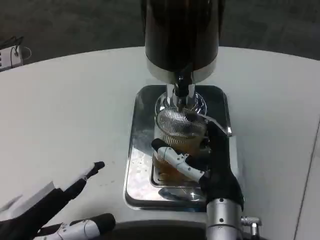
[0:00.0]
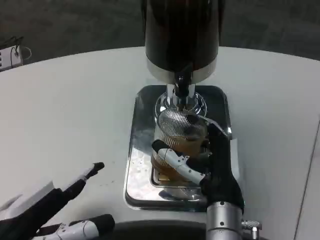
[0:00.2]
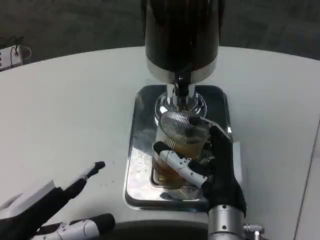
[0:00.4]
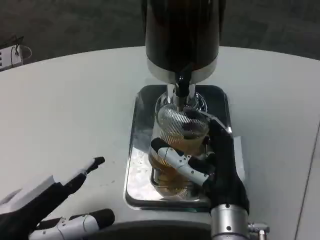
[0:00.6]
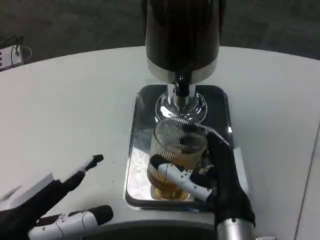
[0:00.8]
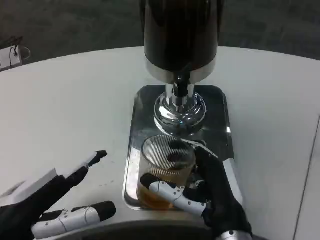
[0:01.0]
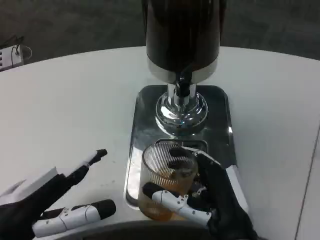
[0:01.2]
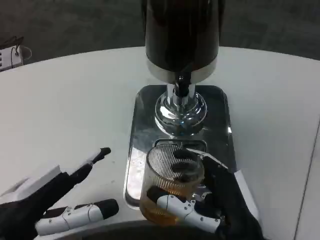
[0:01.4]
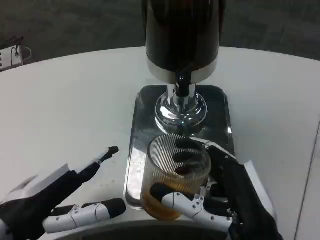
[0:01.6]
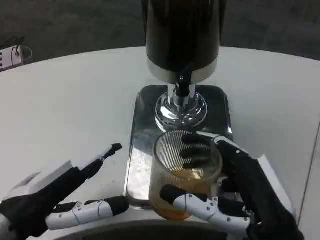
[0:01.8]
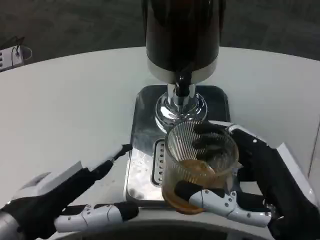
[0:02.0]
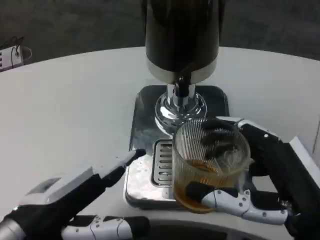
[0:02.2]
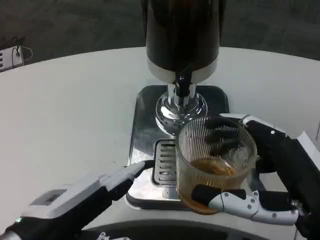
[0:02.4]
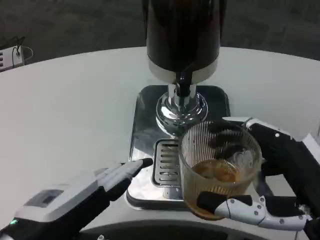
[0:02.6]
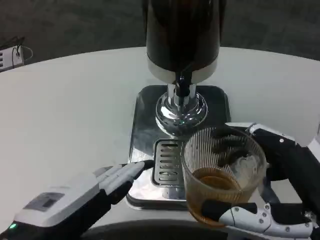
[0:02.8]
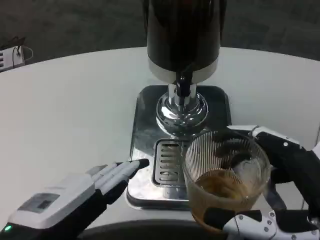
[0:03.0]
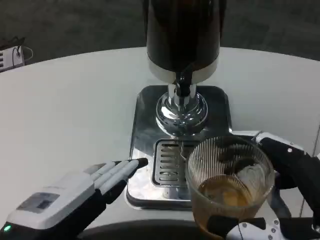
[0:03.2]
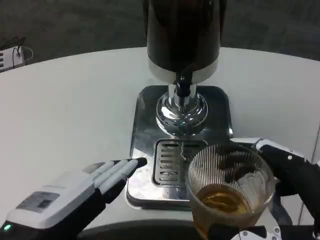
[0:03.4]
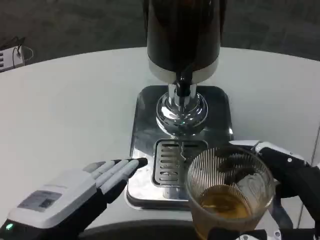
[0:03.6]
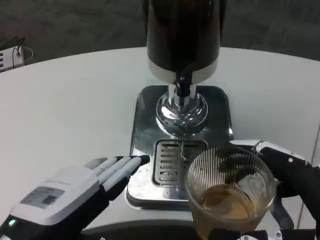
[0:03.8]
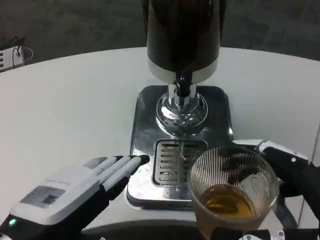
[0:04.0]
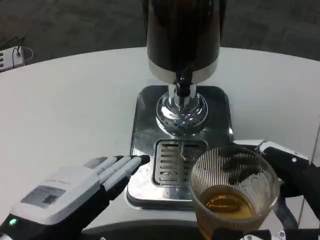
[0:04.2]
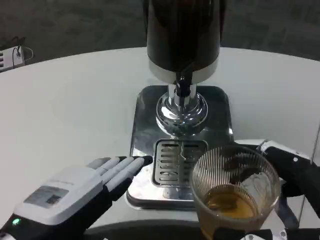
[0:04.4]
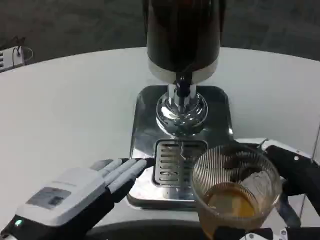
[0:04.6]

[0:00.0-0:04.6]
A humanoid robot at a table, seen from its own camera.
Task of the whole recording: Grasp the cup under the faucet to collect the drink, then remove the cup.
0:00.0 to 0:01.6: The right hand is displaced backward and to the right by approximately 10 cm.
0:01.6 to 0:03.0: The right hand travels to the right and upward by some 10 cm, while the left hand moves some 5 cm.
0:03.0 to 0:04.6: There are only small adjustments of the hands.

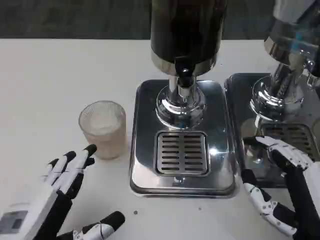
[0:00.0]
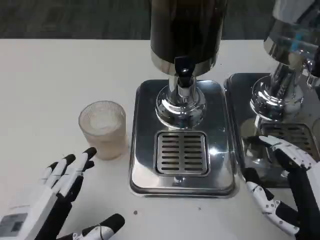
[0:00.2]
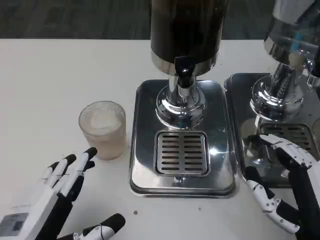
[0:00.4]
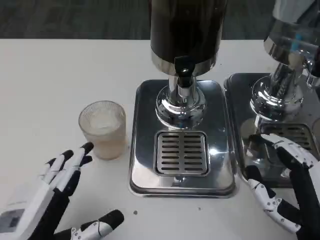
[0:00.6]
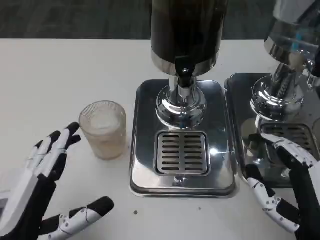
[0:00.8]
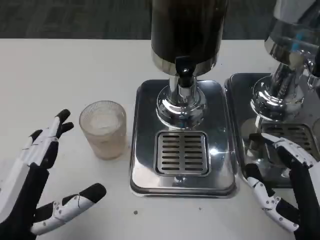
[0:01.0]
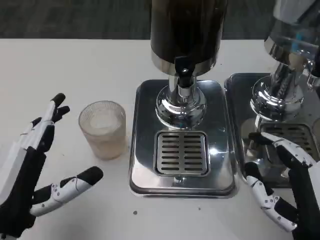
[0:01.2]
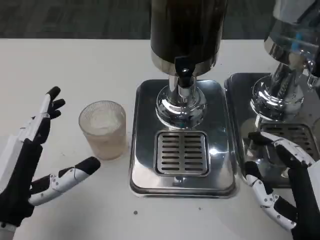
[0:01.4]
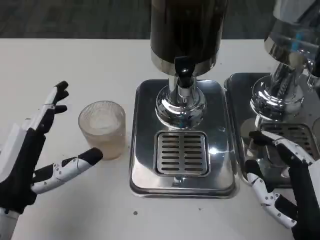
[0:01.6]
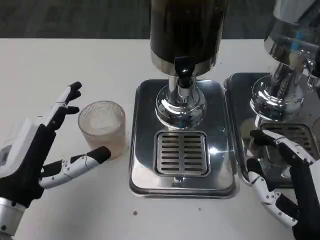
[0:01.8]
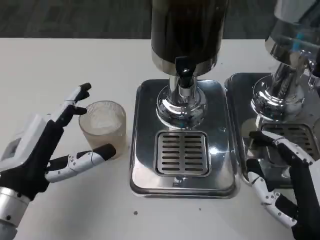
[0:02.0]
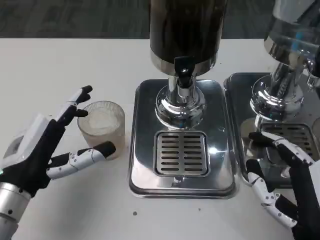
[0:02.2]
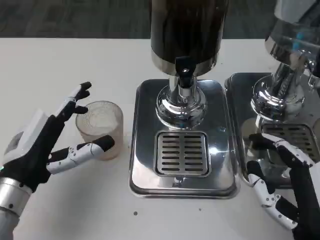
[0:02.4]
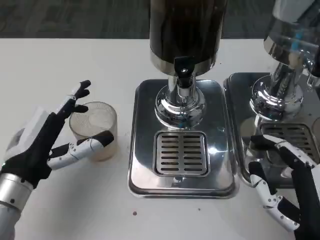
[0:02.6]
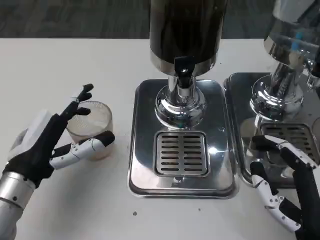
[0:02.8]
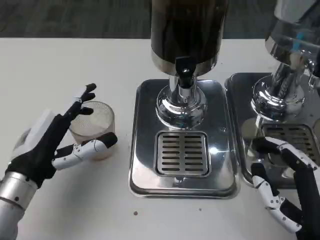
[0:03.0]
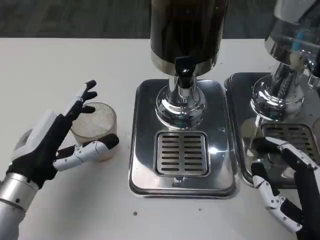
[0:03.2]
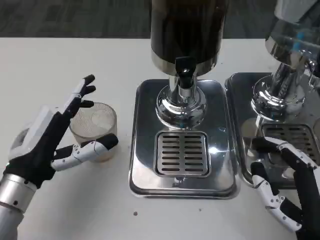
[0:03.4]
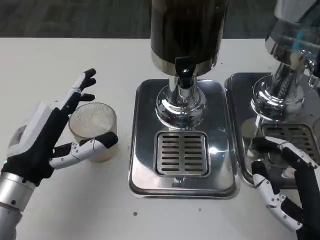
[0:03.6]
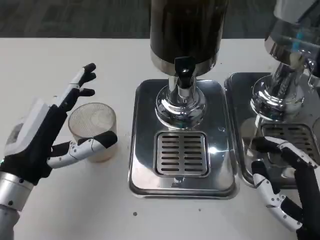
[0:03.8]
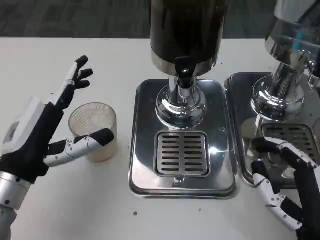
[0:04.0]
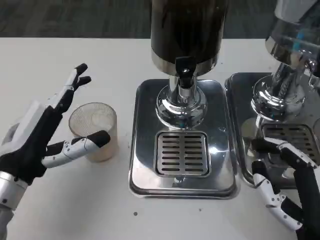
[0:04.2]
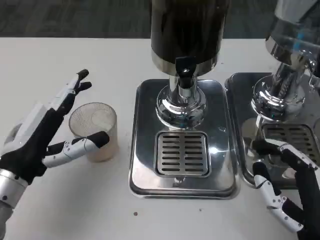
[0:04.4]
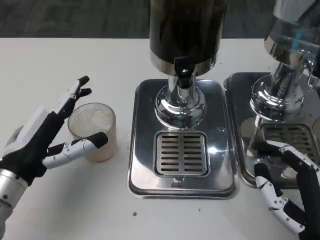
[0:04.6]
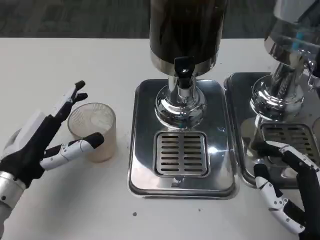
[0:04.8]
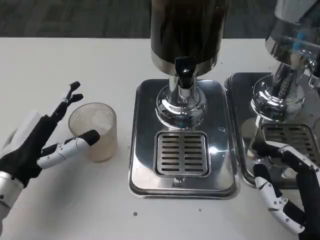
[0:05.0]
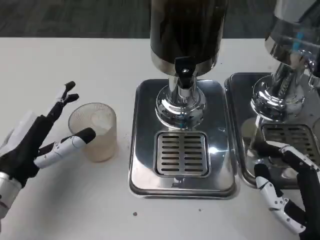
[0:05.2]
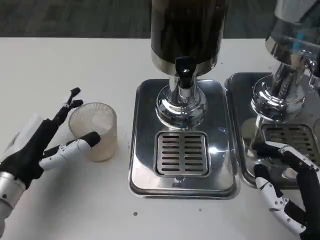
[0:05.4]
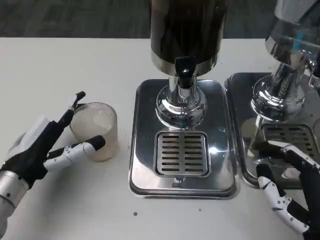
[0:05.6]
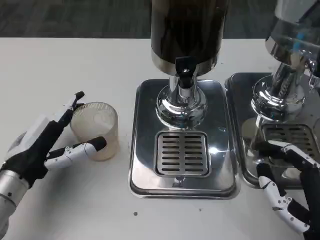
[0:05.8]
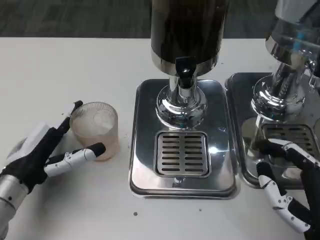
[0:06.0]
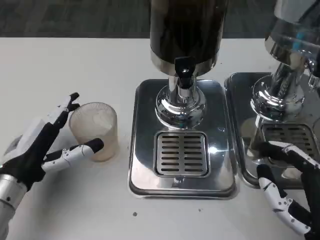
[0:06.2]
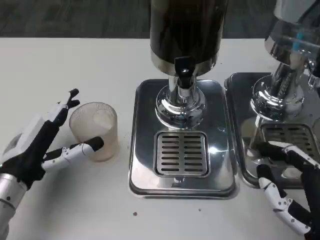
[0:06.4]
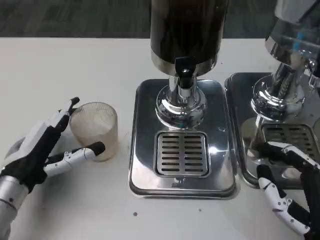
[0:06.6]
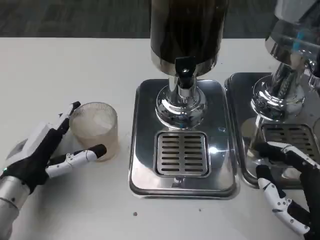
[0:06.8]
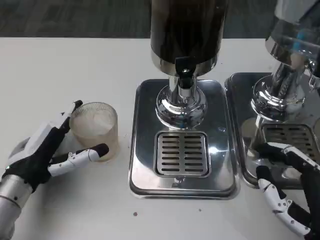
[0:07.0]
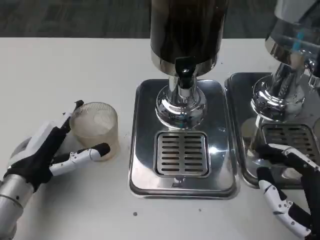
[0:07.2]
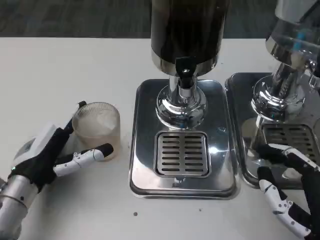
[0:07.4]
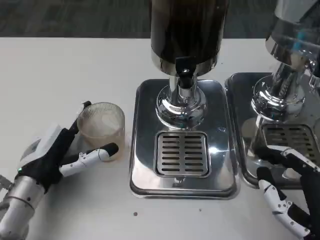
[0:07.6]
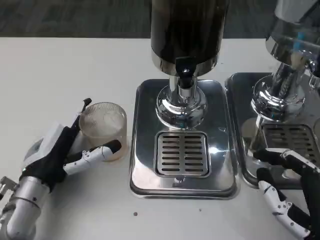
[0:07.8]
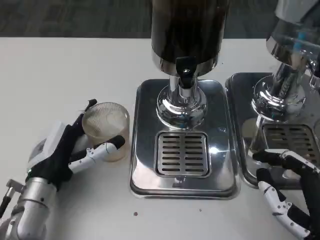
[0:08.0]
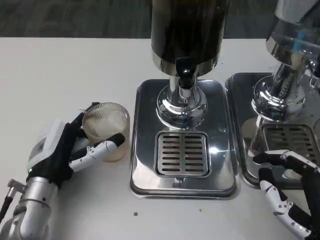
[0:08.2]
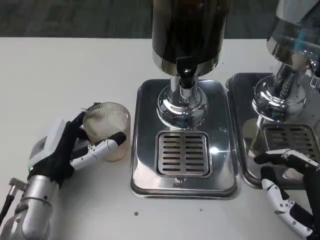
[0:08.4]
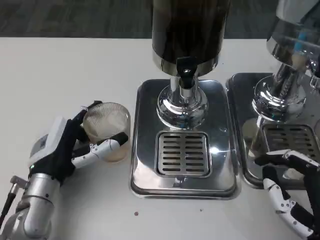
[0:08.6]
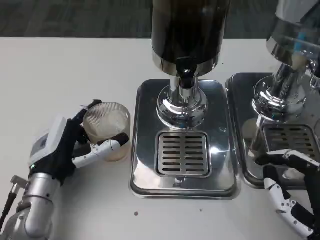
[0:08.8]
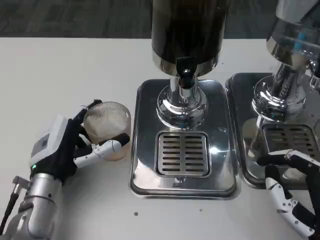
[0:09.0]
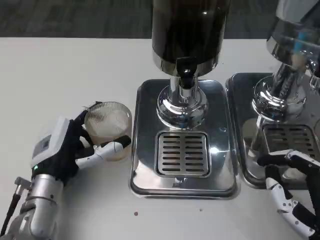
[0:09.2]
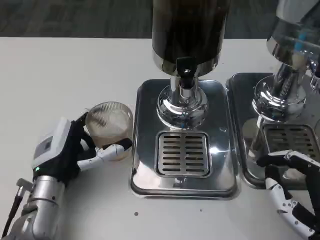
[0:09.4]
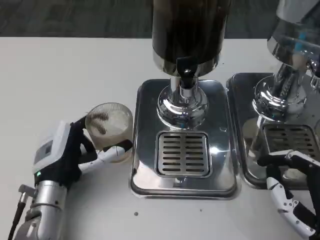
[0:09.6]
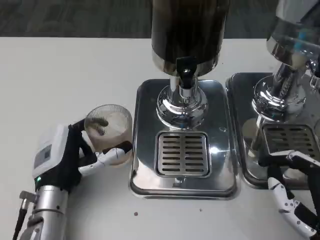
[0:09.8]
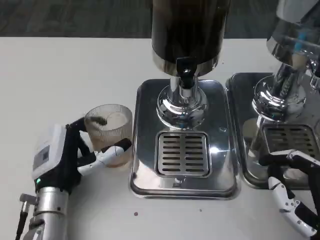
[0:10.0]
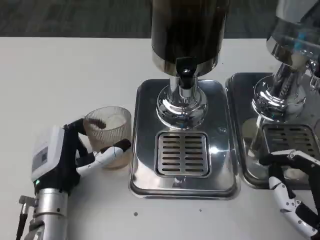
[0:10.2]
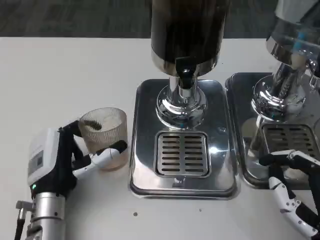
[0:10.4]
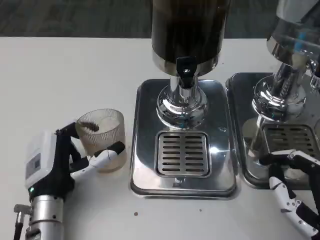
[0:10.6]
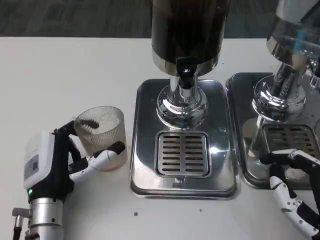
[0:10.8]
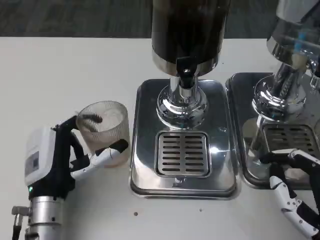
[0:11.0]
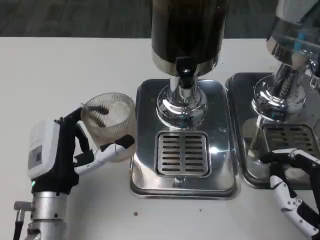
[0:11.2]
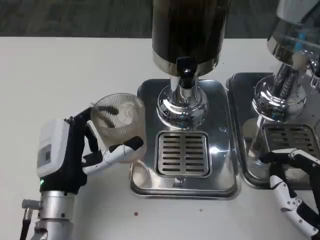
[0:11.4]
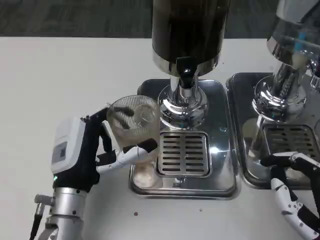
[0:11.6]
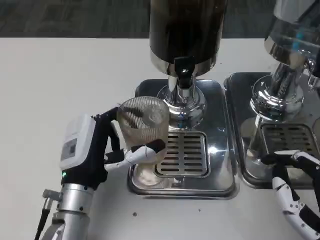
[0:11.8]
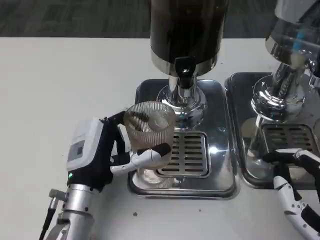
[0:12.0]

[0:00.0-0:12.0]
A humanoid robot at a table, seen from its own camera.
Task of the whole recording: Grasp the cup under the faucet to collect the drink, then remove the cup.
0:00.0 to 0:01.6: The left hand is displaced forward by about 10 cm.
0:01.6 to 0:03.0: The left hand goes some 5 cm forward.
0:03.0 to 0:09.0: The hands stay close to where they were, moving slightly.
0:09.0 to 0:10.4: The hands move only a little.

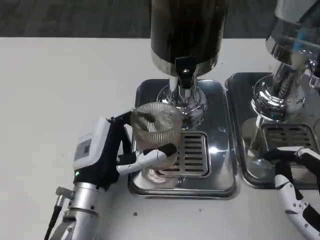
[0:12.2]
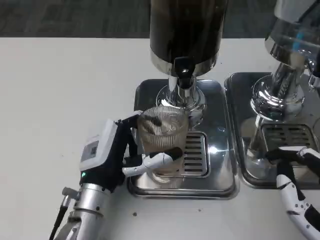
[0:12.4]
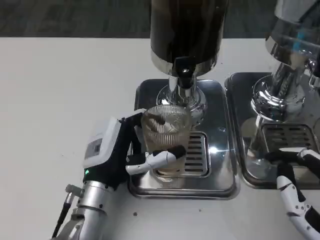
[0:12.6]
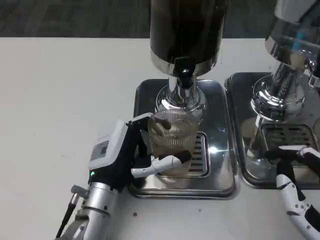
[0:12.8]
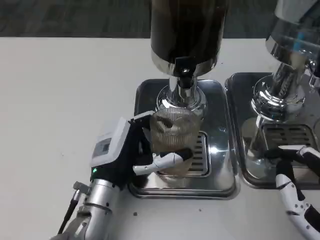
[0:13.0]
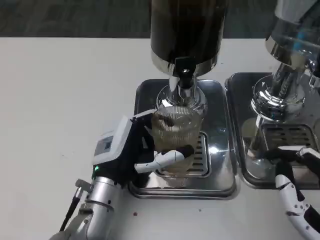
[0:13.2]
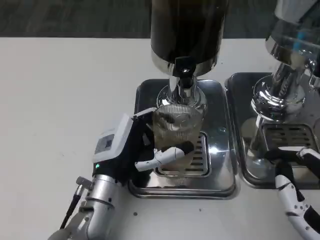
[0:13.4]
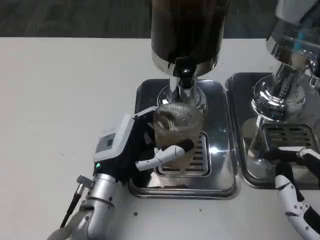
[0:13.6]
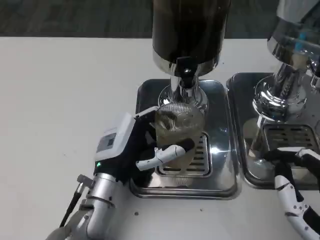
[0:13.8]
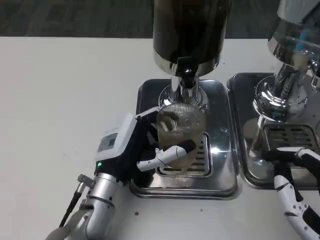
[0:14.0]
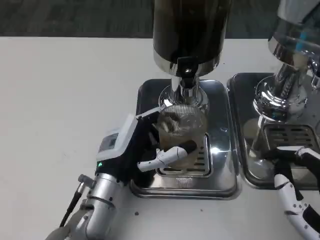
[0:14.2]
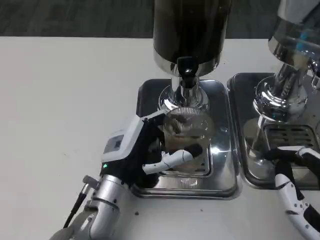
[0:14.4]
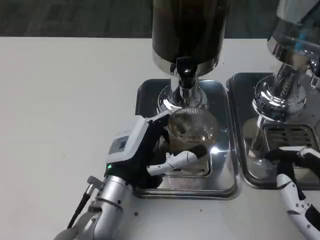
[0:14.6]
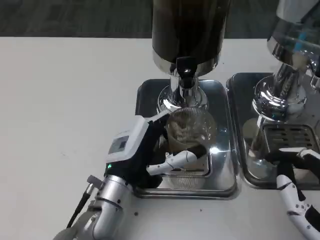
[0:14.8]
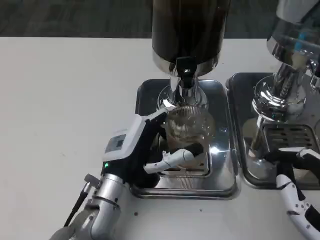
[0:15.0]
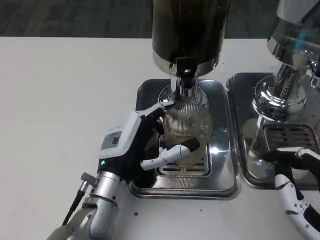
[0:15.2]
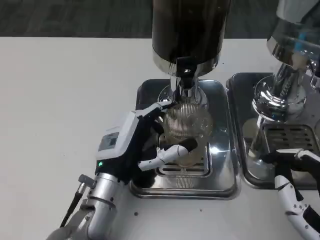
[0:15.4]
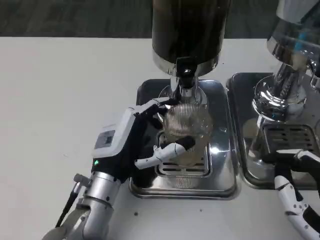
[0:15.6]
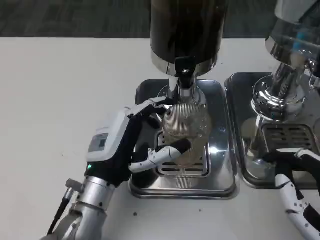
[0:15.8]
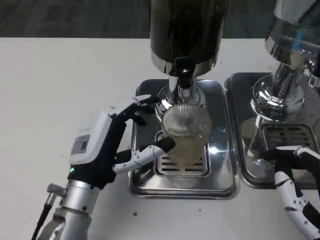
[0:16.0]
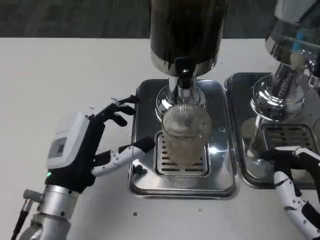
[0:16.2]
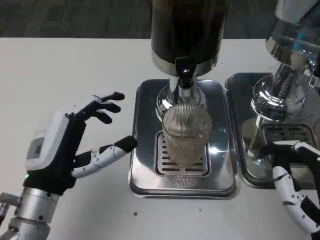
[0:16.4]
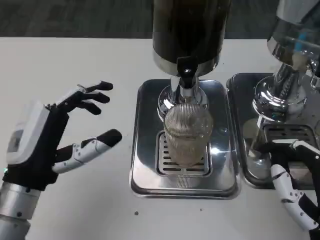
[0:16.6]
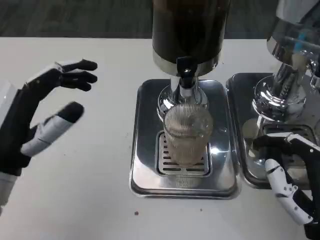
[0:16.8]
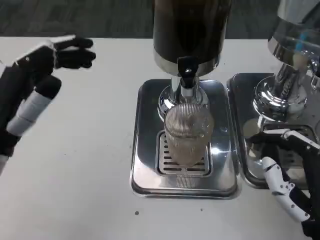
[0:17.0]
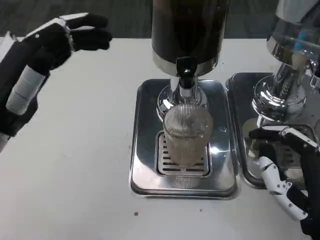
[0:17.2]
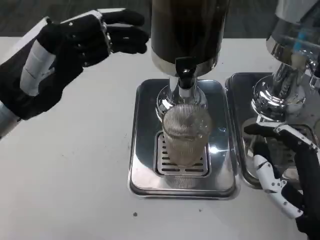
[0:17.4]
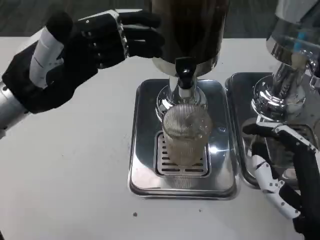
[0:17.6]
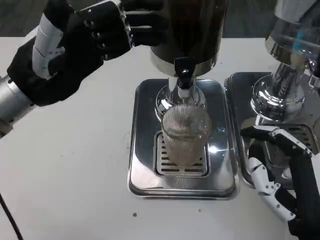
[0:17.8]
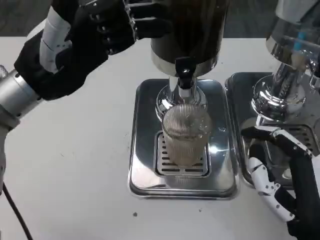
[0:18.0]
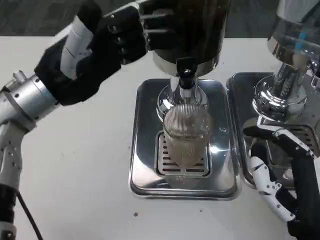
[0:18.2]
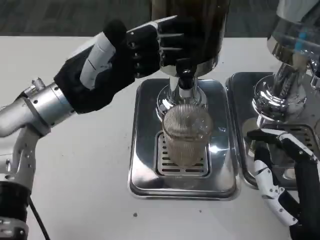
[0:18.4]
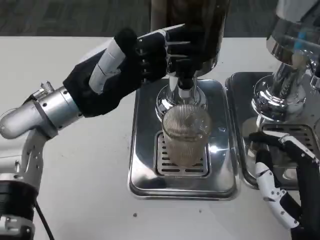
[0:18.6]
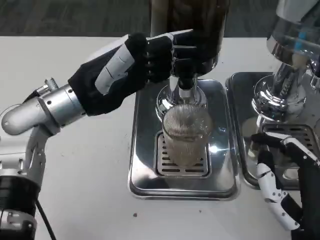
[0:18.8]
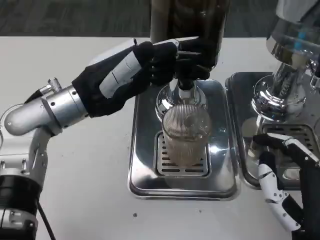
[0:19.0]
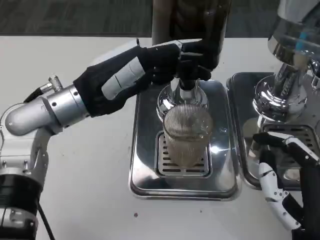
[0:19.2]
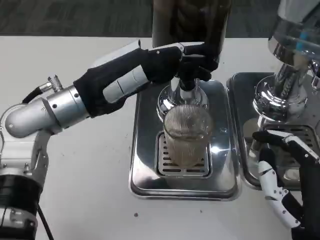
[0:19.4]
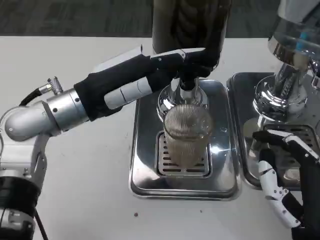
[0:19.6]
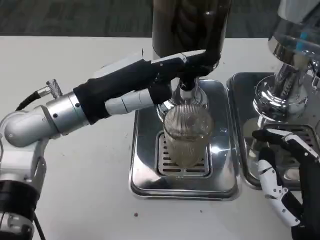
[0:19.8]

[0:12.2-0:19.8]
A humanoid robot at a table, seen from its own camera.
Task of the whole recording: Grasp the cup under the faucet to collect the drink, then remove the cup.
0:12.2 to 0:13.8: There are only small adjustments of the hands.
0:13.8 to 0:15.2: The two hands keep their place.
0:15.2 to 0:16.8: The left hand goes roughly 15 cm to the left and upward.
0:16.8 to 0:18.2: The left hand travels forward and upward by about 15 cm.
